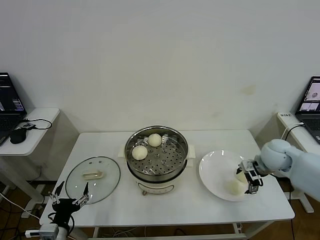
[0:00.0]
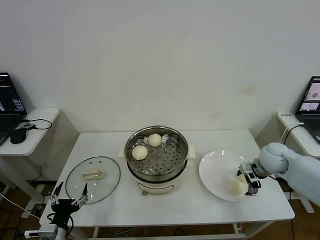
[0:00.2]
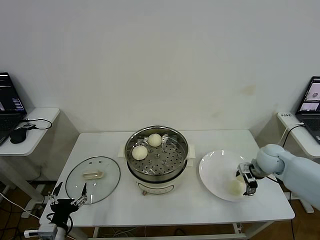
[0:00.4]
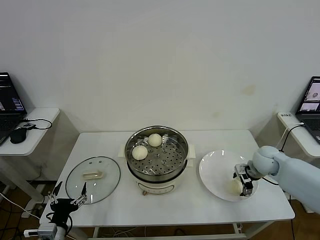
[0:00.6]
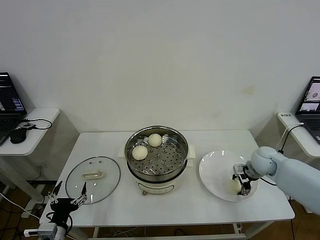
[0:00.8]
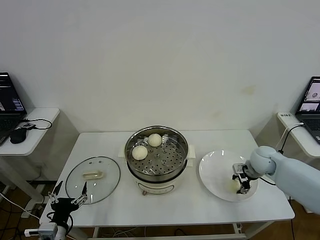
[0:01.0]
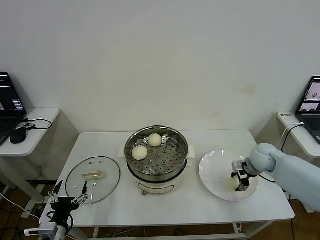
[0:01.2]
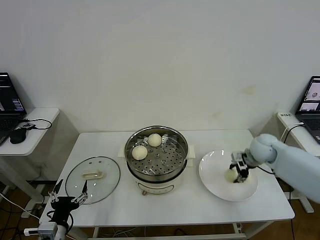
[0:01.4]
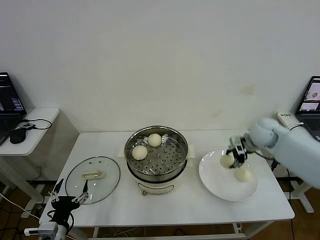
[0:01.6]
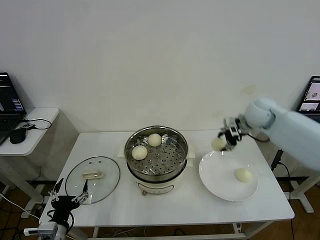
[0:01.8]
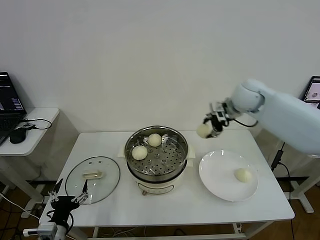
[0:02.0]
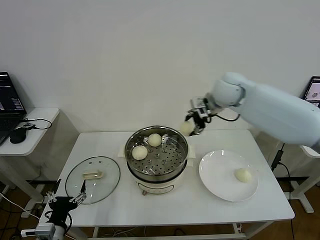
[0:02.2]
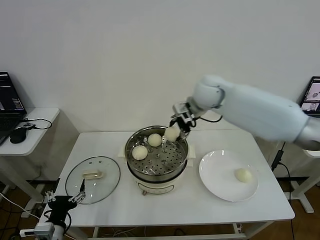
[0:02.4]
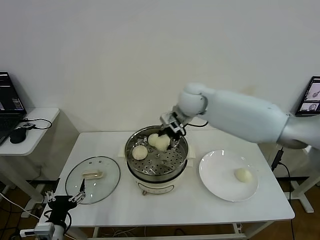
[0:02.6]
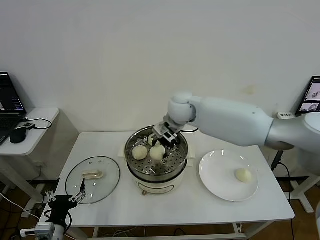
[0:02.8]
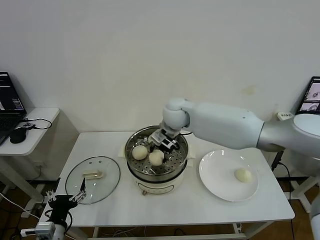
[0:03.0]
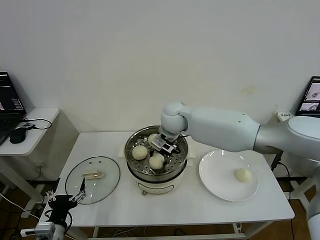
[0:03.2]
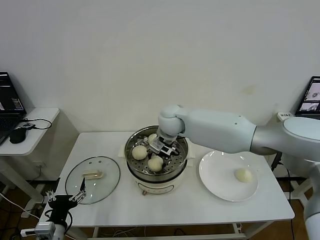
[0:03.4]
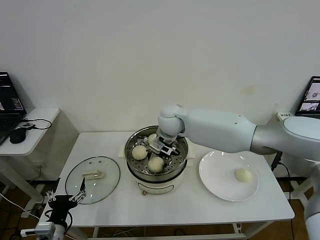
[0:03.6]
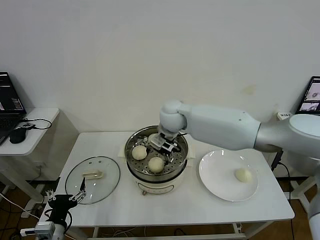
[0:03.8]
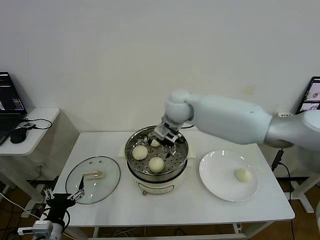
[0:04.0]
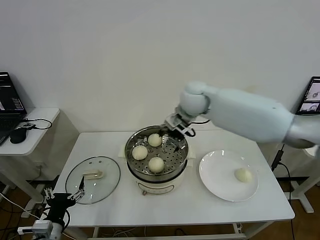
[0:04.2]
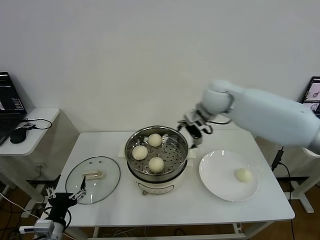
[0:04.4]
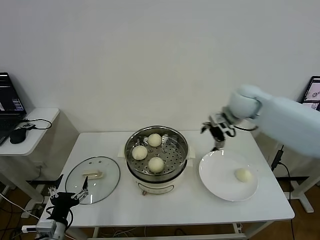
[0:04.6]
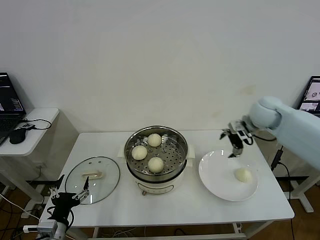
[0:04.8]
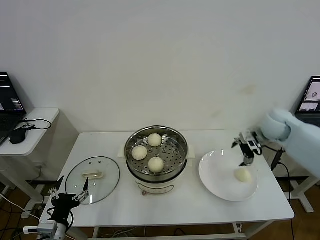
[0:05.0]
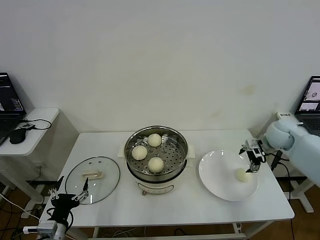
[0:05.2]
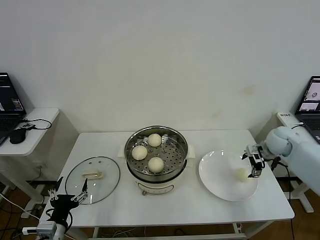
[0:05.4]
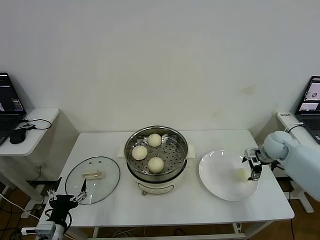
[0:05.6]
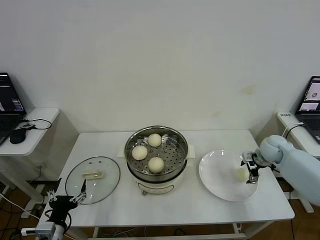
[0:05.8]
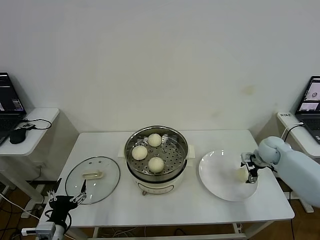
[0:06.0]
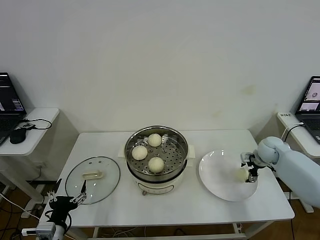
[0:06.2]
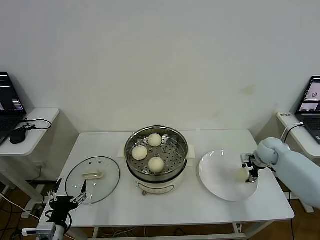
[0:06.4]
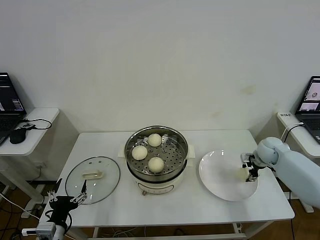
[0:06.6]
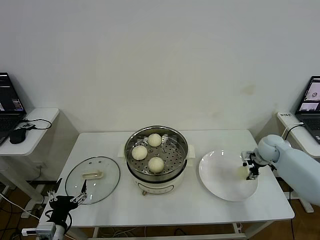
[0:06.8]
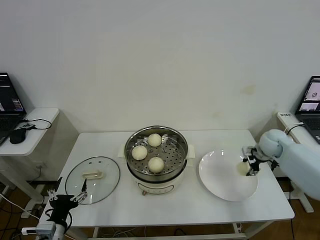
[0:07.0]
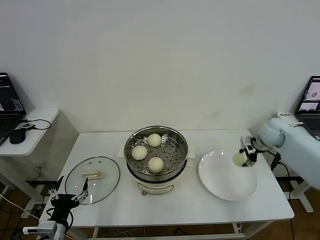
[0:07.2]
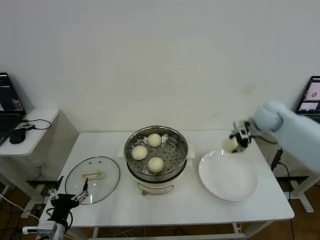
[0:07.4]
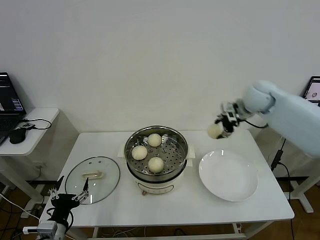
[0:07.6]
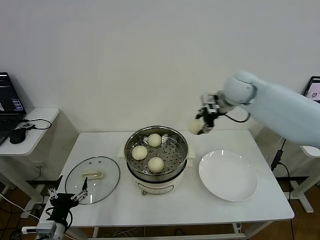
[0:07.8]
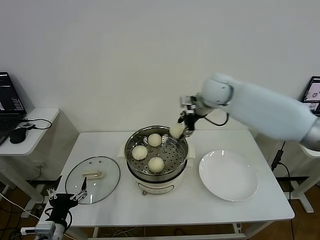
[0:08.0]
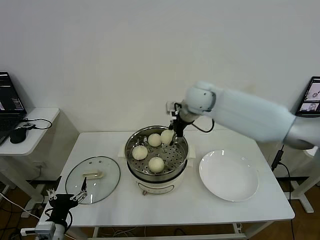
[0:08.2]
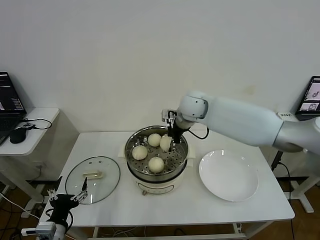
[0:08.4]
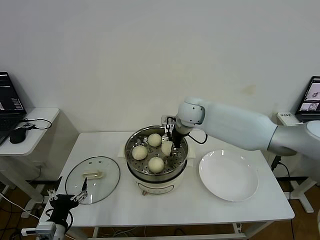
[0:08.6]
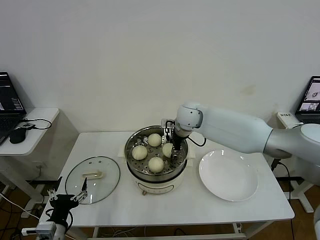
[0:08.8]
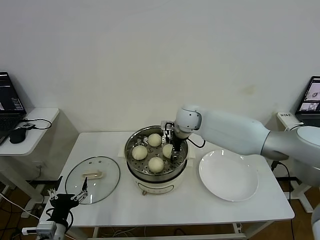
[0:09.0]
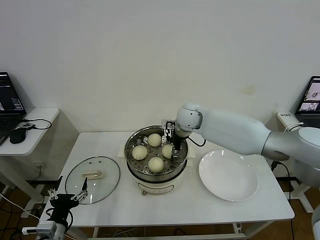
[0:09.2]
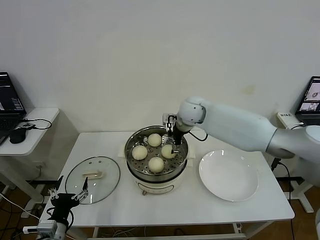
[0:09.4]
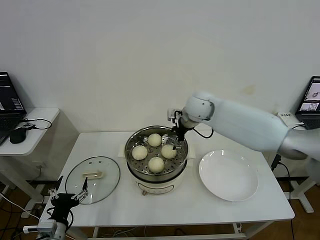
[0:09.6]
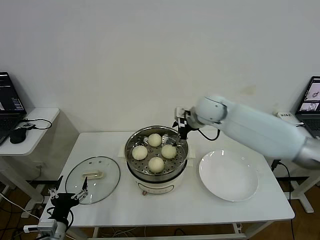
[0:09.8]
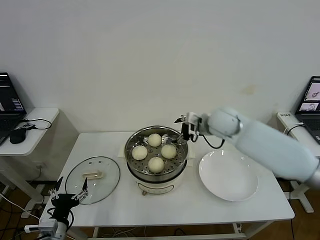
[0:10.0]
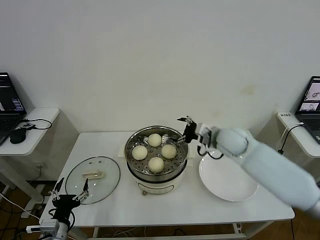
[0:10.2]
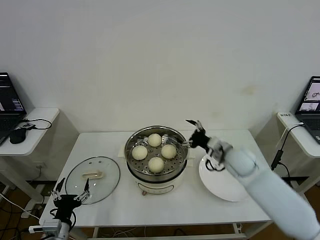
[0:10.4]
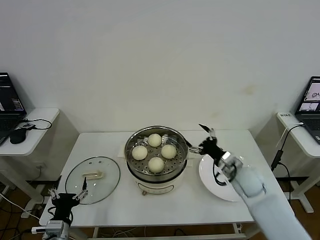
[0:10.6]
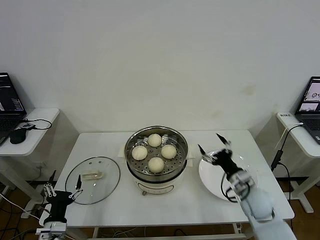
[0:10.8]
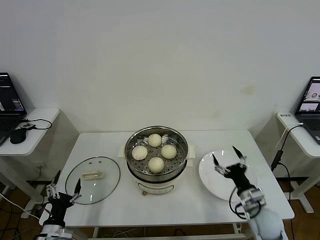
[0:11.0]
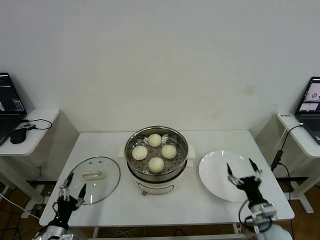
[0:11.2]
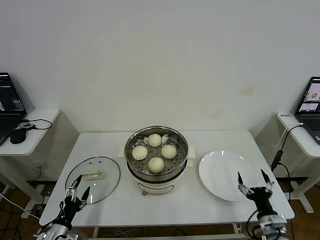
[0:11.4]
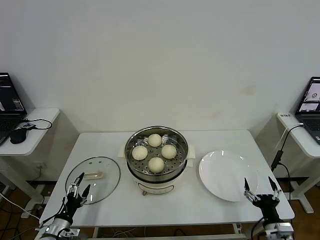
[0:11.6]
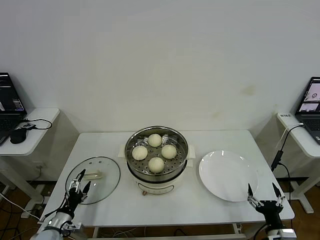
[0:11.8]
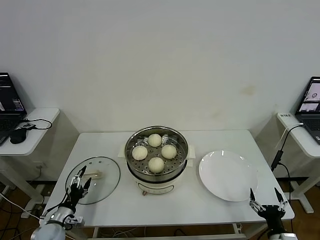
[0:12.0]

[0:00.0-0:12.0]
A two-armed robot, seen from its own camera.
Step, 0:01.2 to 0:03.6: Place the baozi on the steamer with right gripper.
Step, 0:03.8 to 0:06.6: Grasp the baozi in the plate with right gripper.
Step, 0:06.8 to 0:09.2: Place the baozi on the steamer with right gripper.
0:00.0 to 0:01.6: The right gripper heads forward, covering about 5 cm, reaches roughly 5 cm downward, then returns, and closes up.
0:01.6 to 0:03.0: The right gripper goes about 30 cm to the left.
0:03.0 to 0:04.4: The right gripper moves to the right and upward, some 15 cm, and opens its fingers.
0:04.4 to 0:06.0: The right gripper heads to the right and downward, covering approximately 35 cm.
0:06.0 to 0:07.6: The right gripper goes roughly 25 cm upward and to the left, and closes.
0:07.6 to 0:09.0: The right gripper travels to the left by some 20 cm.
0:09.0 to 0:10.4: The right gripper goes some 20 cm to the right, backward and downward, and opens.
0:10.4 to 0:12.0: The left gripper shifts about 15 cm downward, forward and to the left, while the right gripper goes approximately 35 cm backward, downward and to the right.

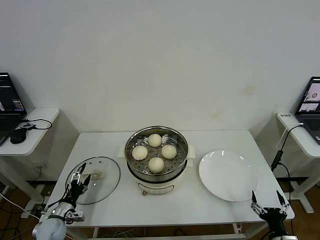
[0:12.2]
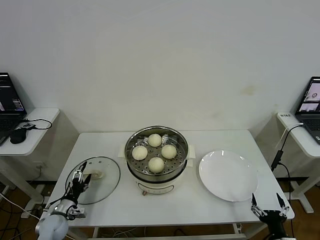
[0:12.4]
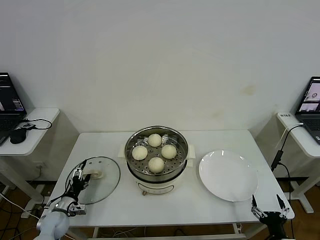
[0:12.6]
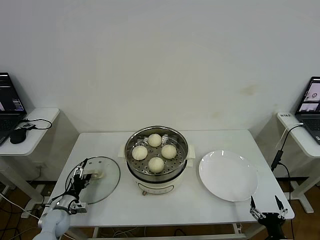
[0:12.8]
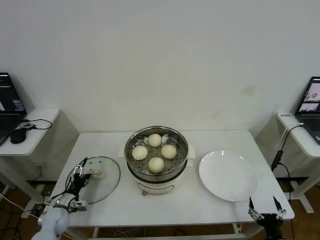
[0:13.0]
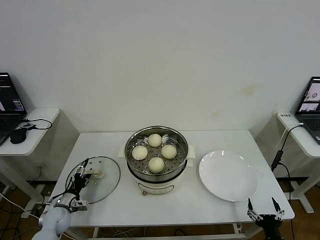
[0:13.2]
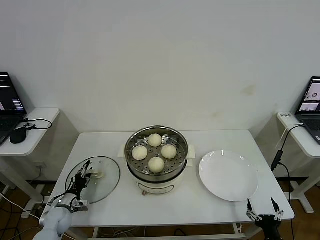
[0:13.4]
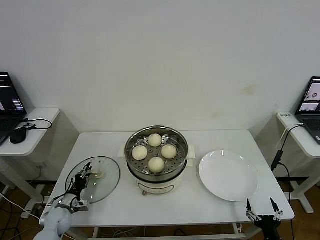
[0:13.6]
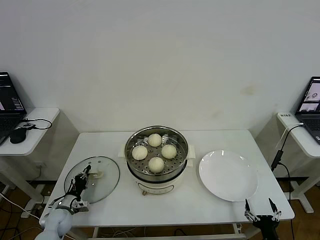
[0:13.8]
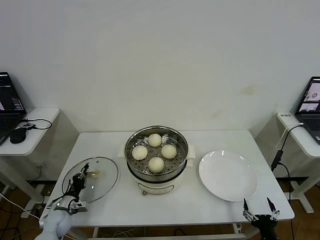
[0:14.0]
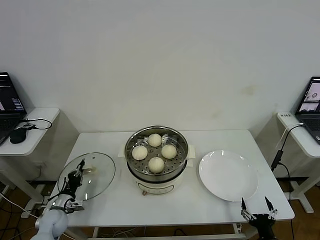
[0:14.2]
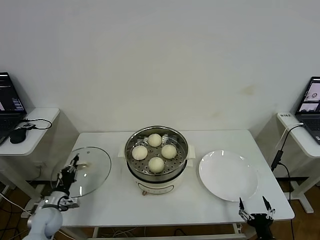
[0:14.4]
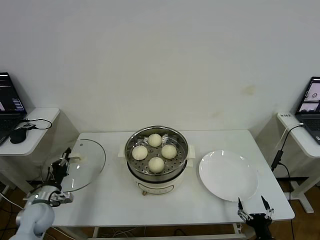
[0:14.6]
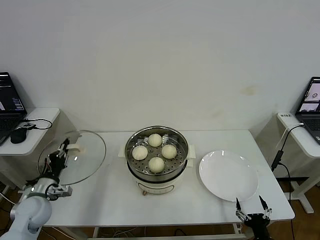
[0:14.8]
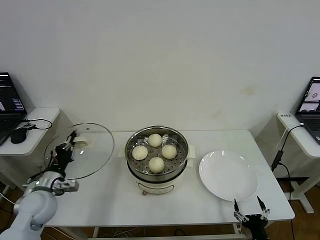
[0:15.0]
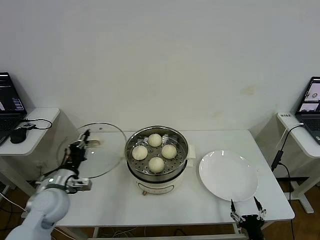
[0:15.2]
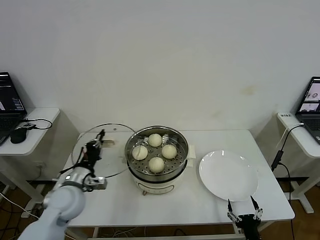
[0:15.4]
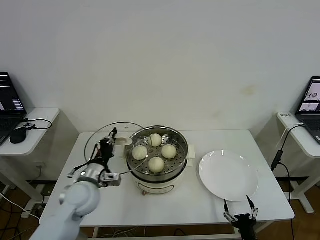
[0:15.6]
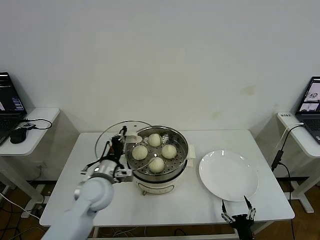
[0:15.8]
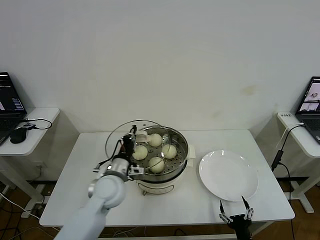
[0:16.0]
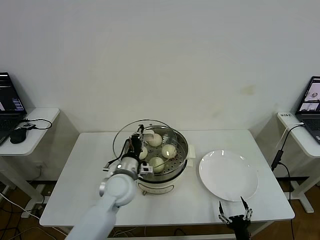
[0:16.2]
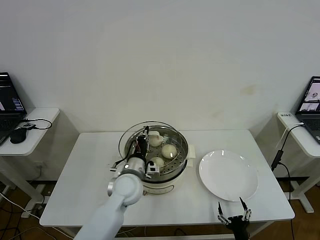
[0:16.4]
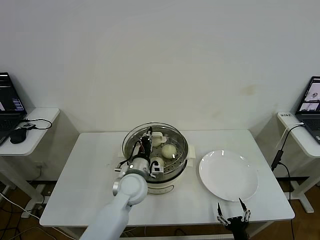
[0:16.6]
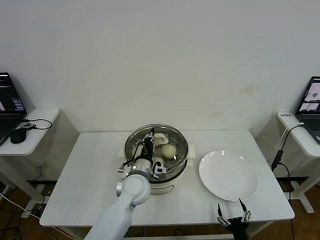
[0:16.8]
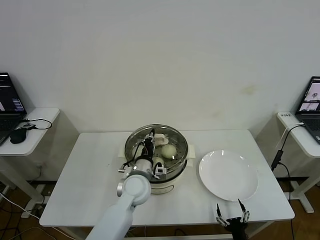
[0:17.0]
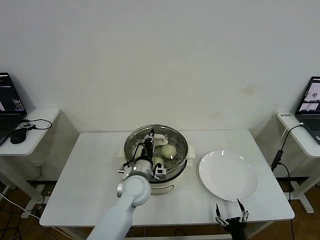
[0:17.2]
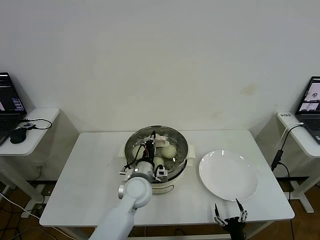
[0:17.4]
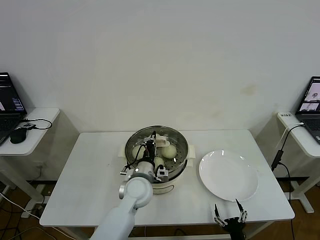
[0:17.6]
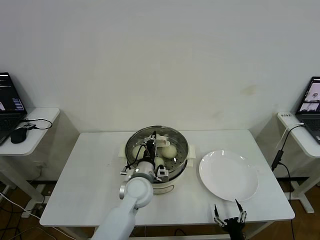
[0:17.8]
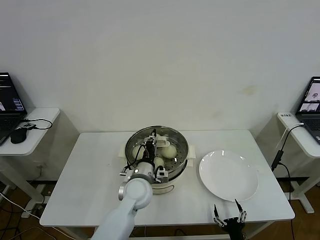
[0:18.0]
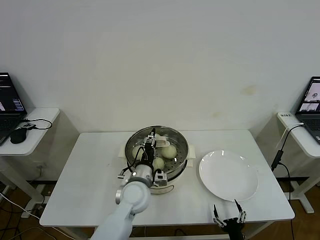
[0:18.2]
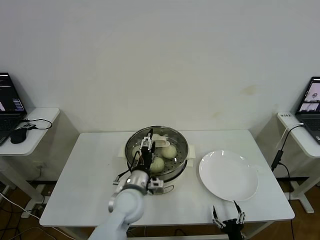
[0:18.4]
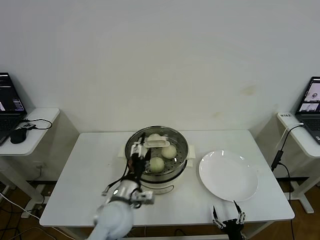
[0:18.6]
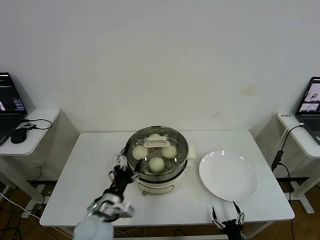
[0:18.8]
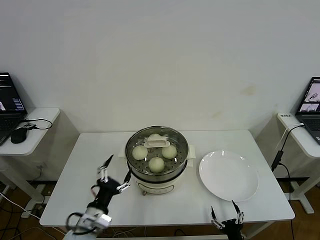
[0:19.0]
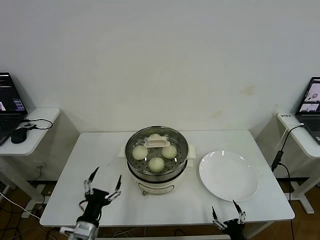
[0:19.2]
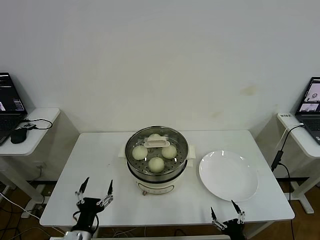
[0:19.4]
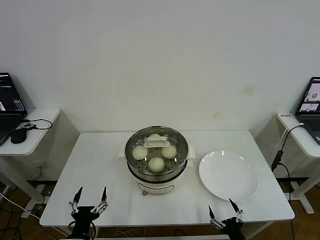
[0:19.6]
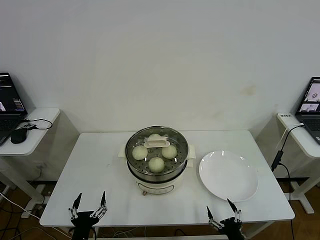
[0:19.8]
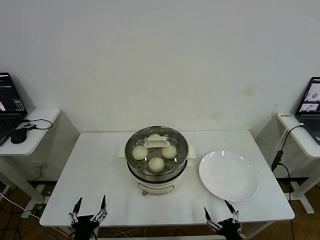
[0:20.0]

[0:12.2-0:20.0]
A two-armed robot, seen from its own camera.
Step, 0:14.2 to 0:18.2: Place the pot lid on the steamer with left gripper.
0:12.2 to 0:13.8: The left gripper moves roughly 5 cm, and closes up.
0:13.8 to 0:15.4: The left gripper goes roughly 25 cm upward and to the right.
0:15.4 to 0:16.8: The left gripper travels to the right by some 20 cm.
0:16.8 to 0:18.4: The left gripper opens.
0:18.4 to 0:20.0: The left gripper is displaced backward, to the left and downward by roughly 30 cm. Meanwhile the right gripper goes approximately 5 cm upward.
